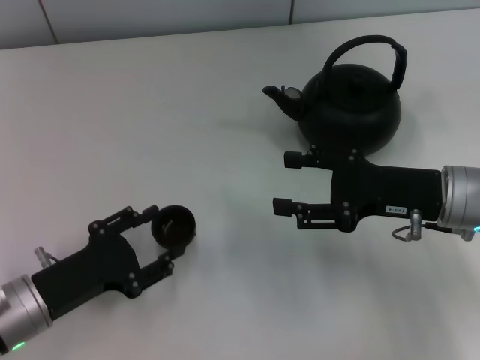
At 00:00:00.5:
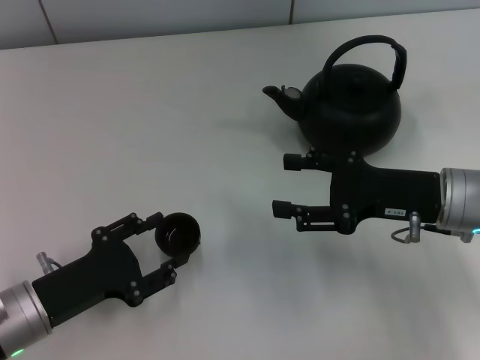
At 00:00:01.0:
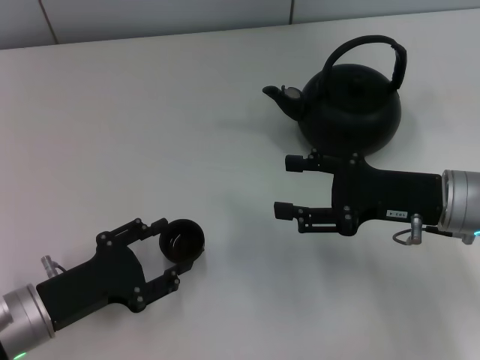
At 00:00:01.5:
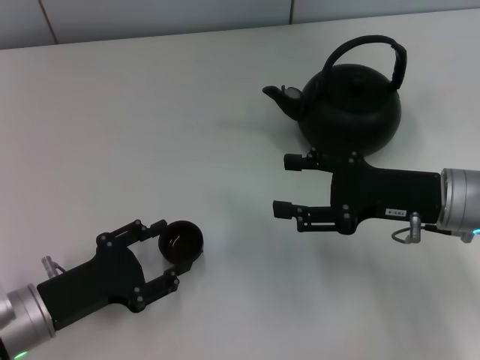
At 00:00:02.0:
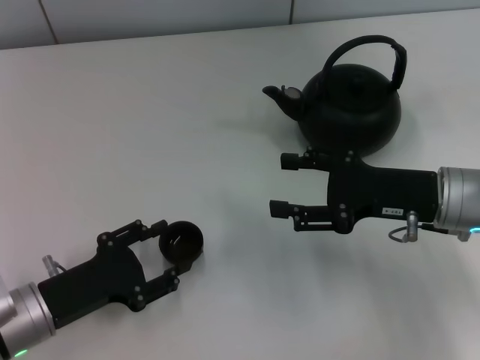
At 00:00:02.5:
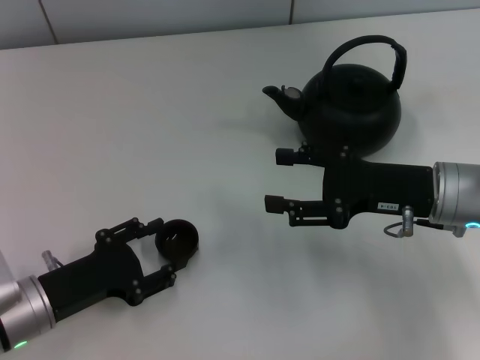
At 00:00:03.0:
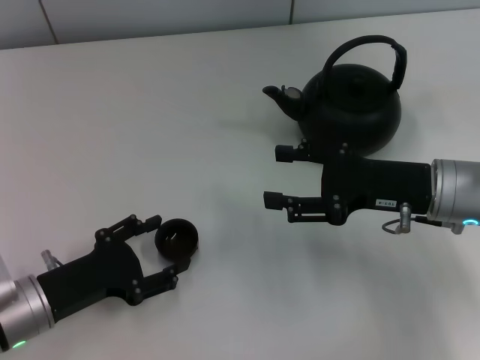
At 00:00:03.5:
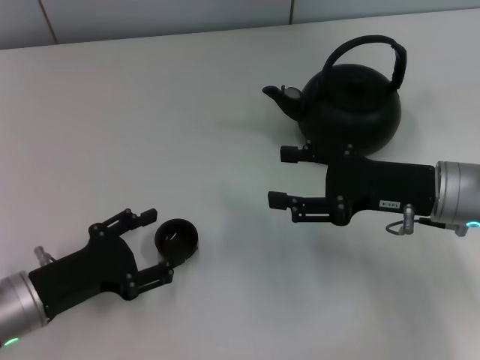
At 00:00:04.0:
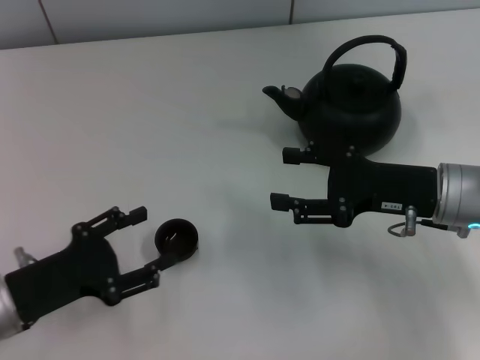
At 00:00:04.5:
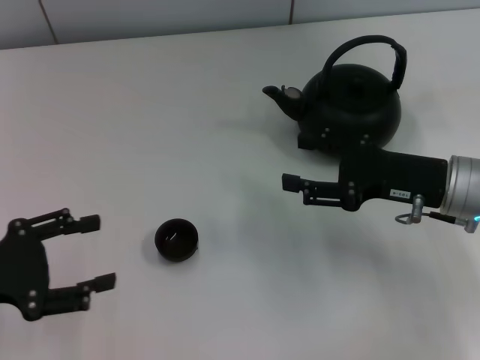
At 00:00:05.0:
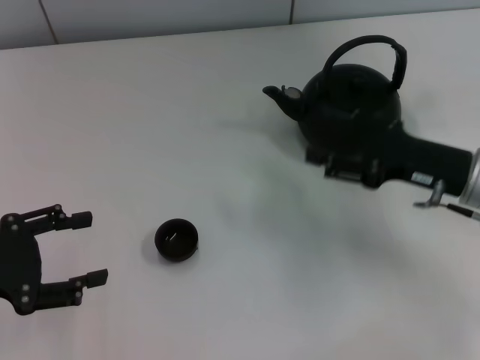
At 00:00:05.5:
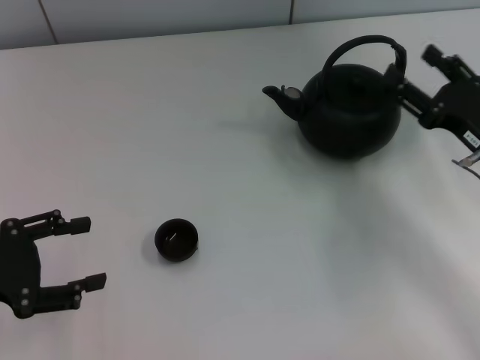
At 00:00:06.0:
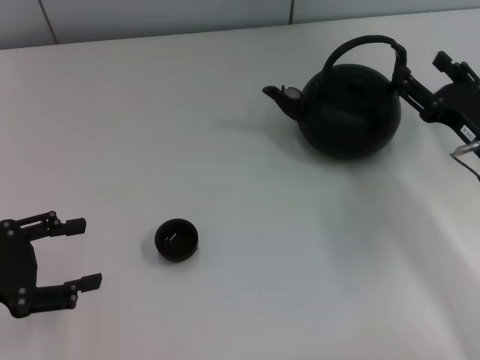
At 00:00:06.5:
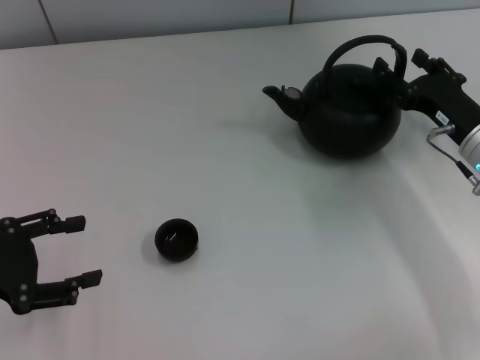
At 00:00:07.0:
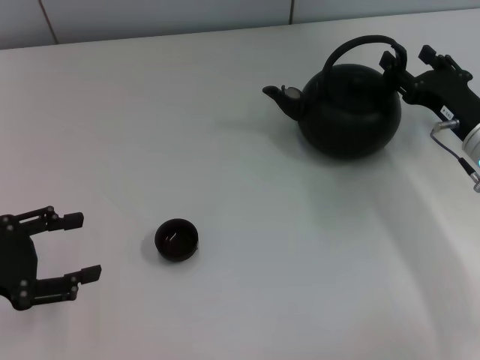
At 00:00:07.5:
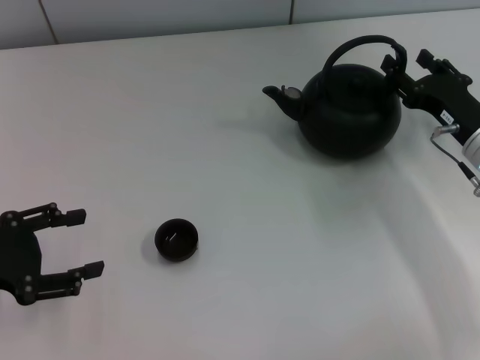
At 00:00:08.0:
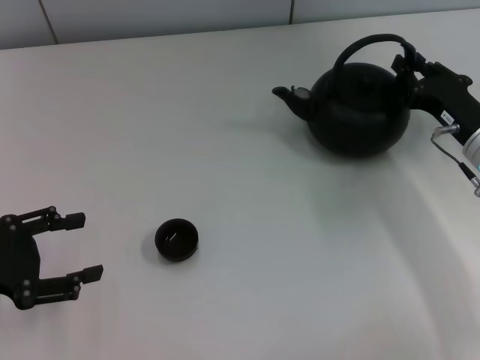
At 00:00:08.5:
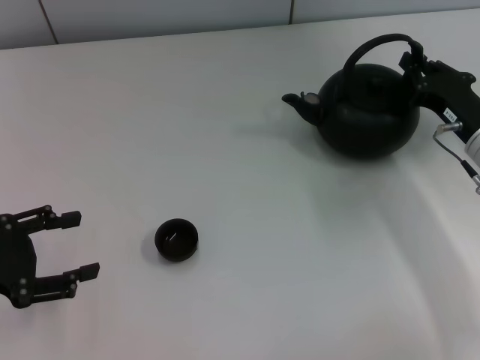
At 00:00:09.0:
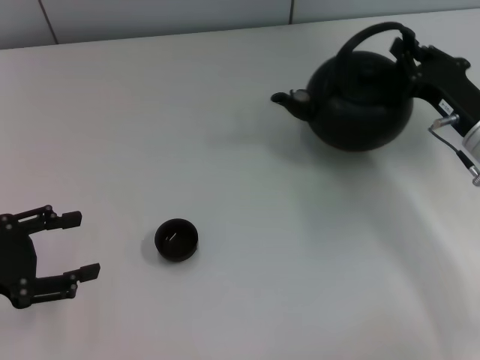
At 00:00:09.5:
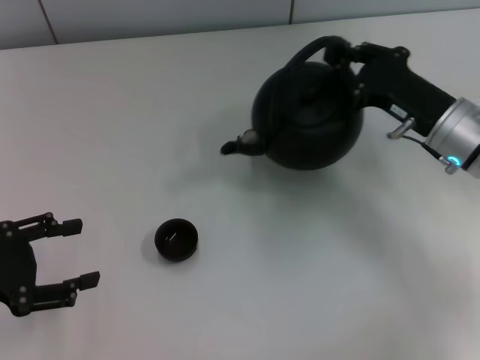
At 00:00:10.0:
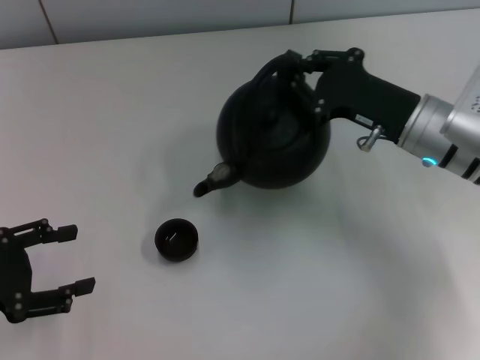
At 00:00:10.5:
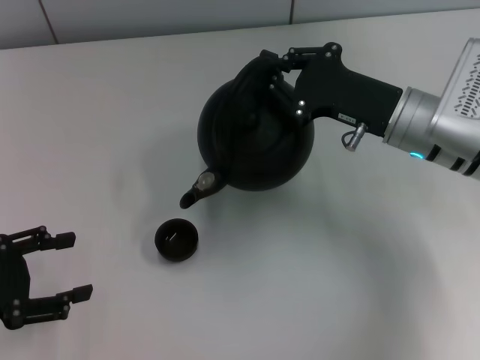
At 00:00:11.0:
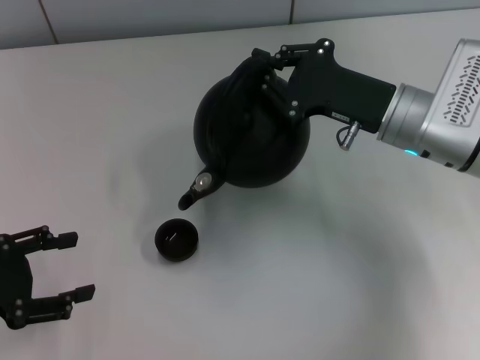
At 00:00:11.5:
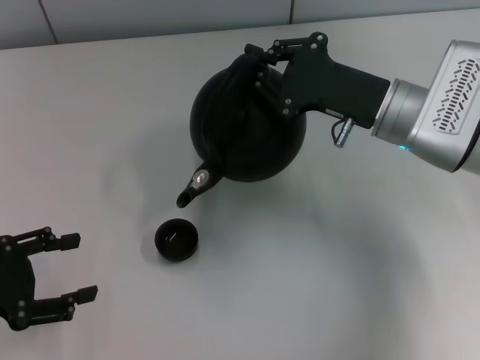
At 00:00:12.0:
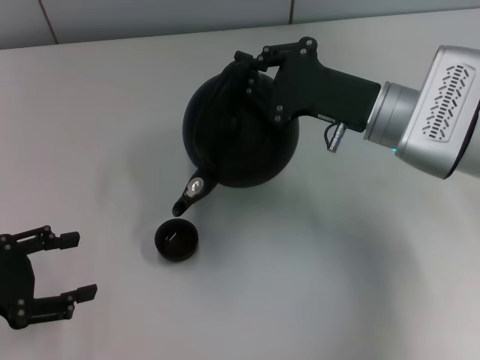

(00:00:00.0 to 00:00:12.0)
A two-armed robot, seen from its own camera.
Task of the whole recording: Grasp the handle of the teapot with one hand and pour tea into the teacup.
Step, 00:00:00.0 - 00:00:03.5: Place the teacup in the center of view with the left gripper.
Step, 00:00:04.0 - 00:00:09.0: Pick up the teapot with the right gripper.
00:00:00.0 - 00:00:02.0: Both grippers stay put.
00:00:02.0 - 00:00:04.0: The left gripper opens up.
00:00:04.0 - 00:00:06.0: The right gripper goes some 5 cm to the right. The left gripper is displaced to the left and upward by about 10 cm.
00:00:06.0 - 00:00:08.0: The right gripper closes its fingers.
00:00:08.0 - 00:00:10.0: The right gripper heads to the left, covering roughly 5 cm, and closes its fingers.
00:00:10.0 - 00:00:12.0: The grippers move only a little.

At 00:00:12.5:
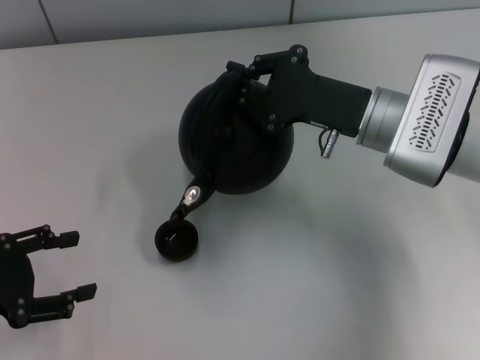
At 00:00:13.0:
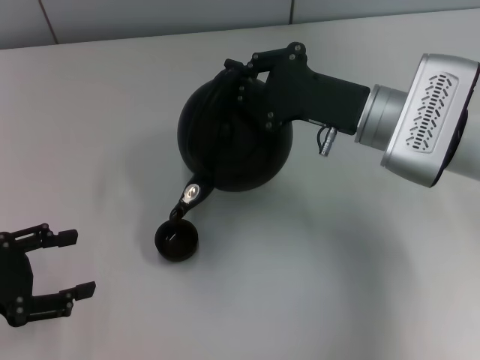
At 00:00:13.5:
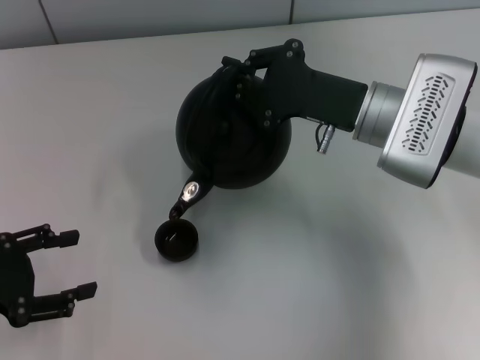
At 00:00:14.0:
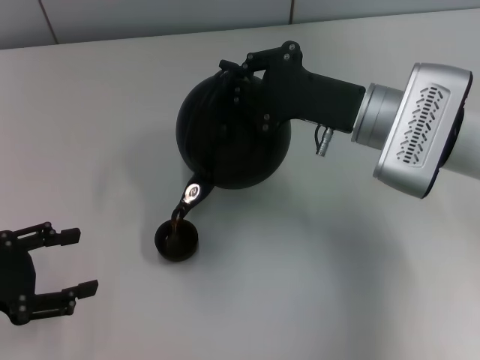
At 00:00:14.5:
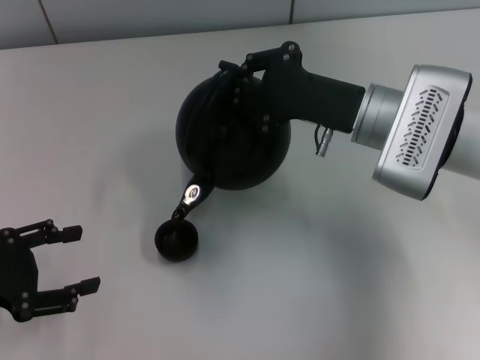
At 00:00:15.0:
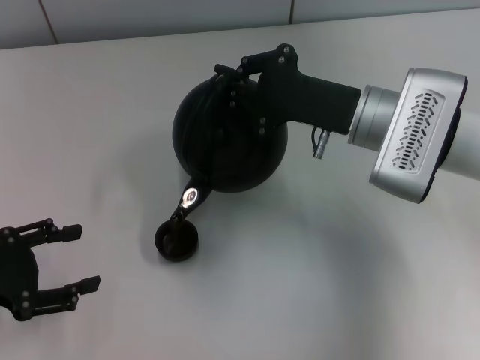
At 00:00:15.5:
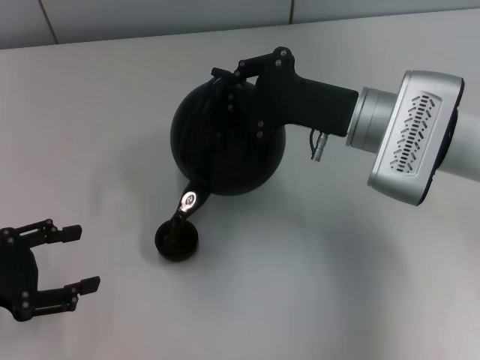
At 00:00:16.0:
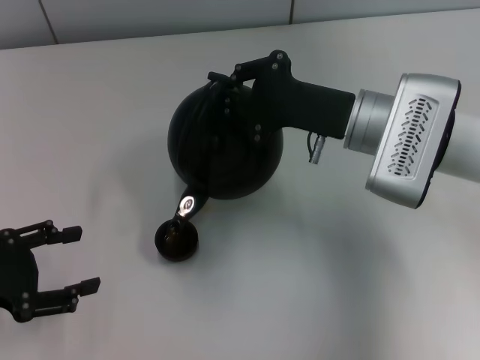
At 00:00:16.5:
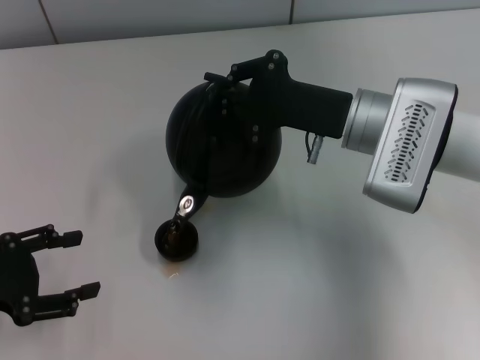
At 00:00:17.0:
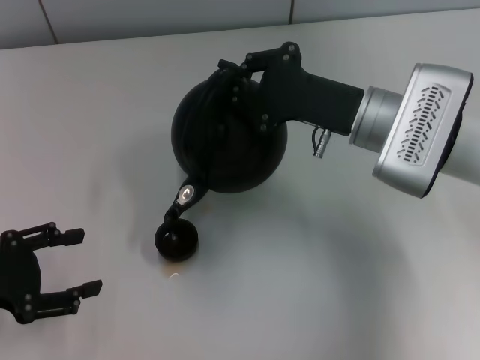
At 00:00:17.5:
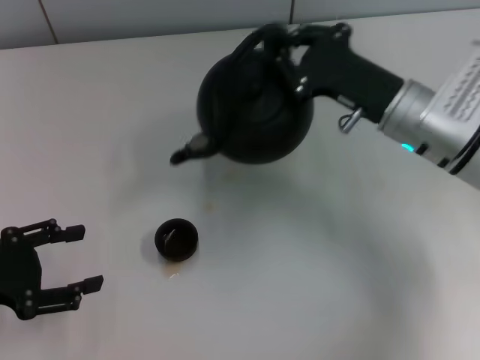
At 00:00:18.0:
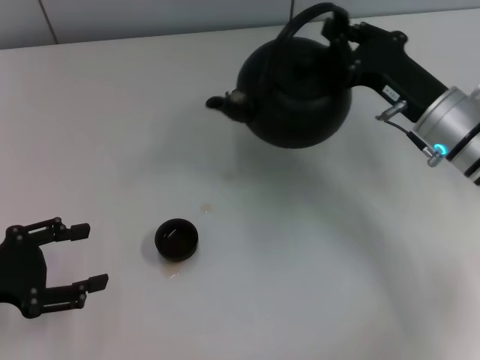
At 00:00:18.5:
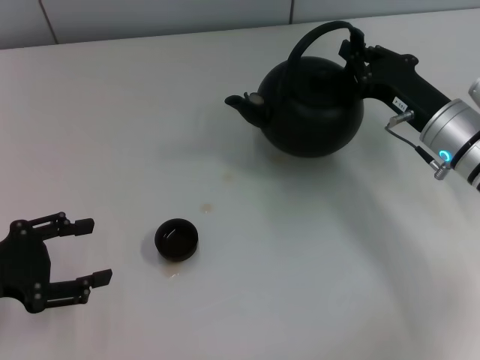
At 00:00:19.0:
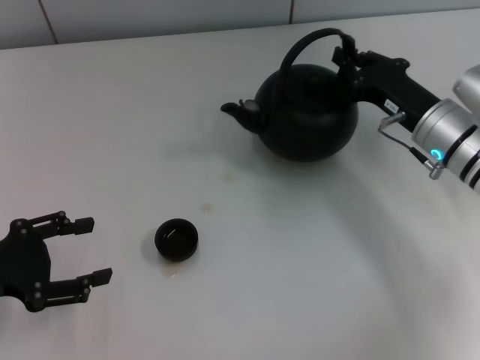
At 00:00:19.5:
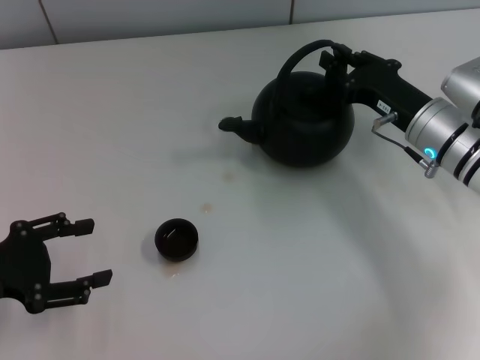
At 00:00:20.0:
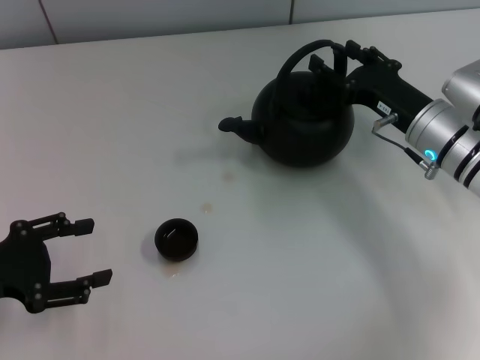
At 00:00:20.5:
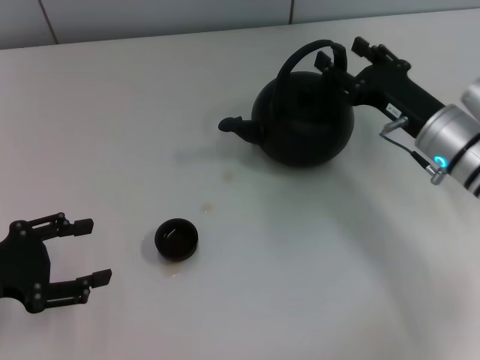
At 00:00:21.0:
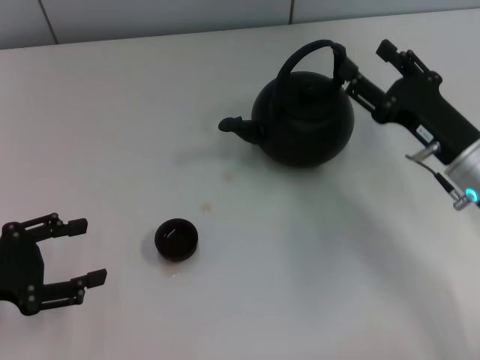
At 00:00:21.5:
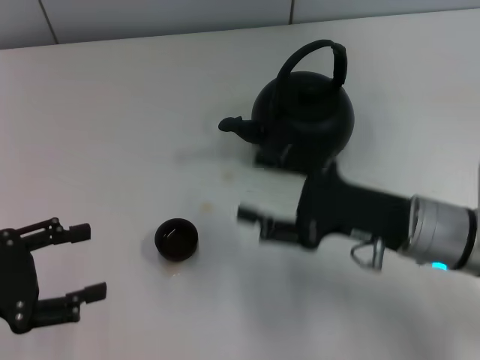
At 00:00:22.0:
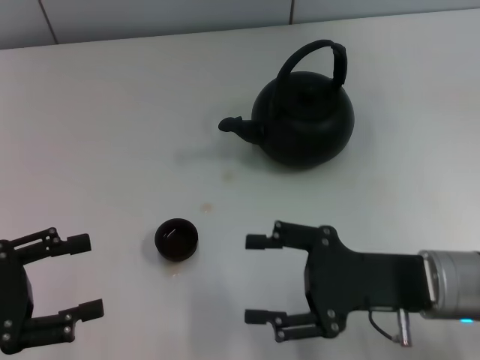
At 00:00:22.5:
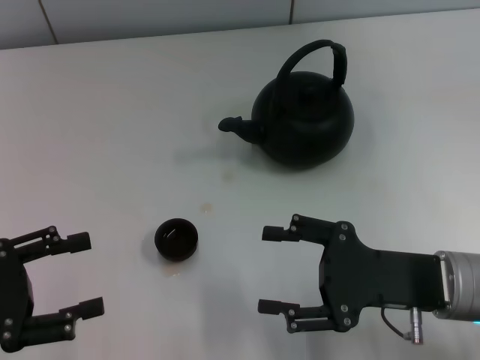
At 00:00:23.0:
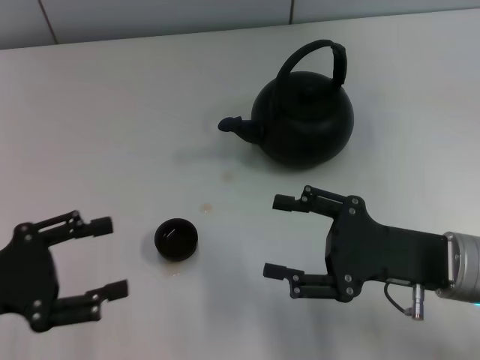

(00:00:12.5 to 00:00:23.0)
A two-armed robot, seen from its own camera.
Task of the whole recording: Grasp the handle of the teapot with one hand and pour tea into the teacup.
Step, 00:00:17.5 - 00:00:20.5: Put down the teapot with the right gripper.
00:00:12.5 - 00:00:16.5: There are only small adjustments of the grippers.
00:00:16.5 - 00:00:19.0: The right gripper travels to the right and downward by approximately 10 cm.
00:00:19.0 - 00:00:21.0: The right gripper travels backward by some 5 cm, and opens its fingers.
00:00:21.0 - 00:00:23.0: The right gripper goes approximately 5 cm backward.
